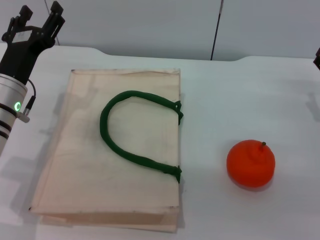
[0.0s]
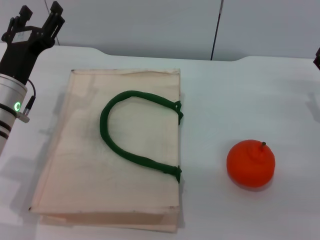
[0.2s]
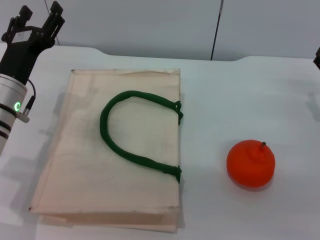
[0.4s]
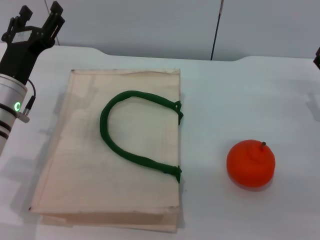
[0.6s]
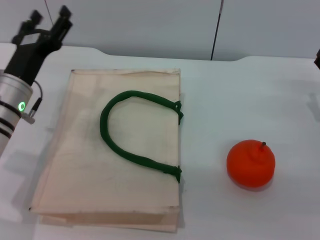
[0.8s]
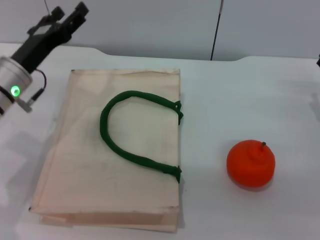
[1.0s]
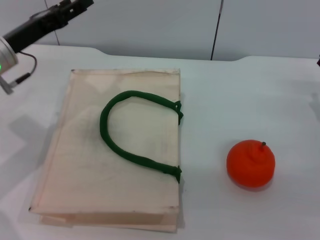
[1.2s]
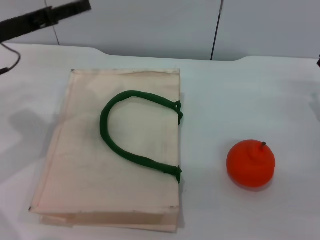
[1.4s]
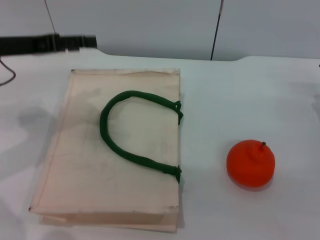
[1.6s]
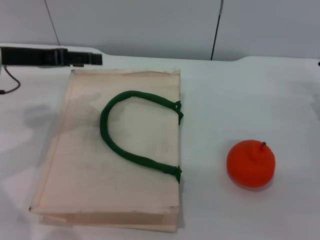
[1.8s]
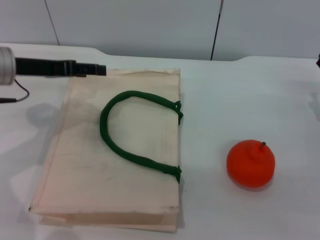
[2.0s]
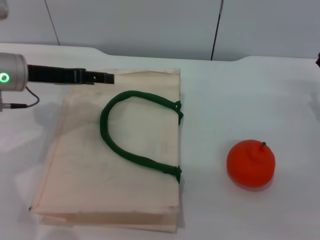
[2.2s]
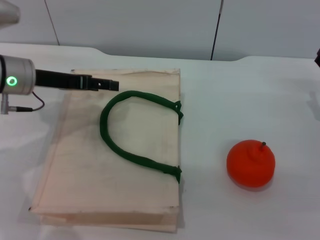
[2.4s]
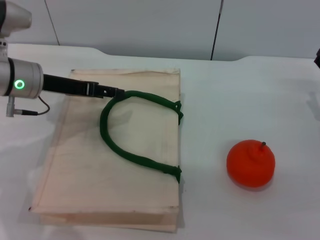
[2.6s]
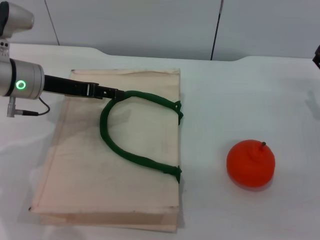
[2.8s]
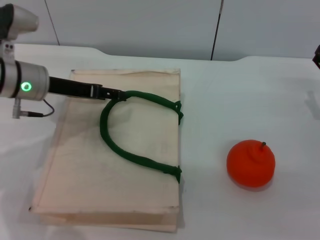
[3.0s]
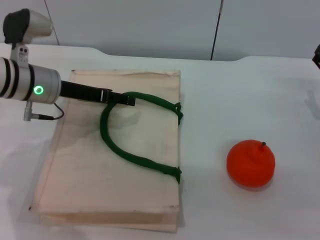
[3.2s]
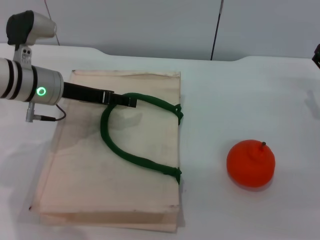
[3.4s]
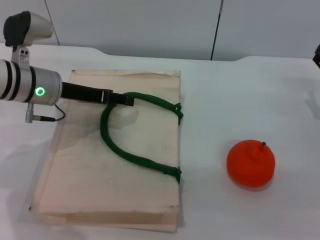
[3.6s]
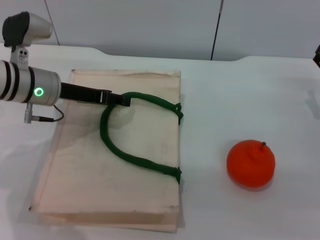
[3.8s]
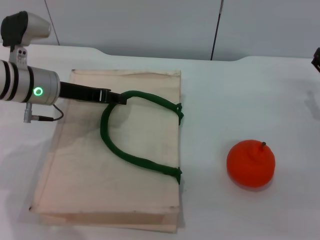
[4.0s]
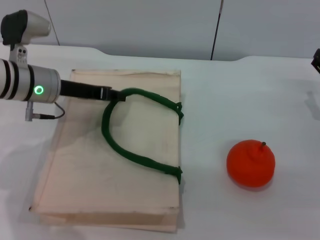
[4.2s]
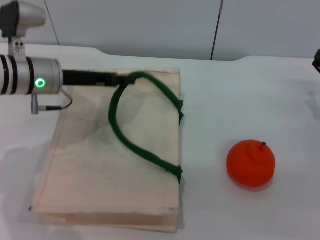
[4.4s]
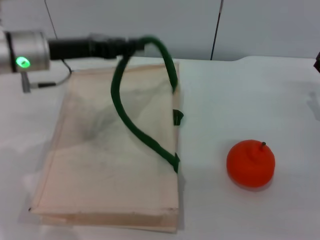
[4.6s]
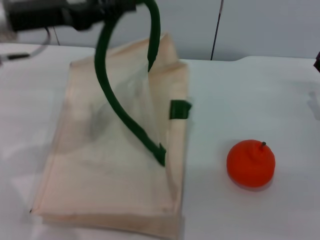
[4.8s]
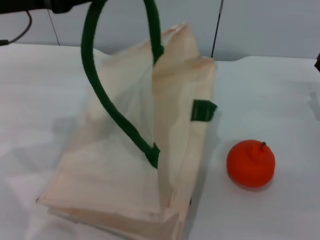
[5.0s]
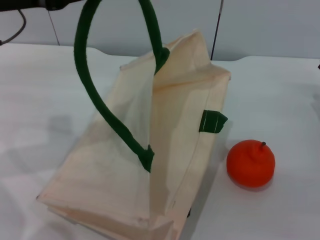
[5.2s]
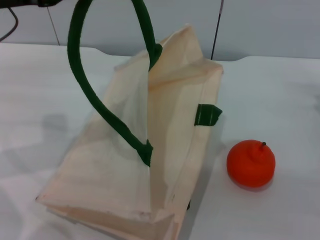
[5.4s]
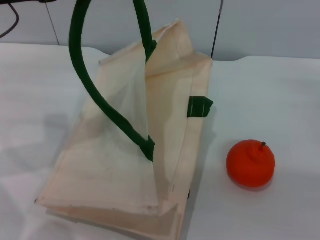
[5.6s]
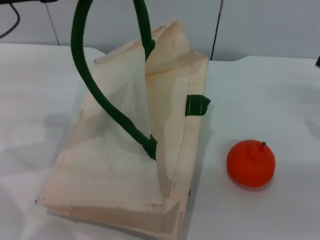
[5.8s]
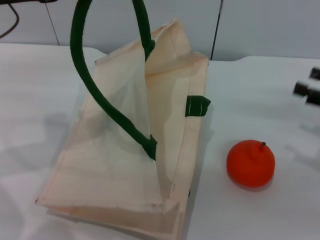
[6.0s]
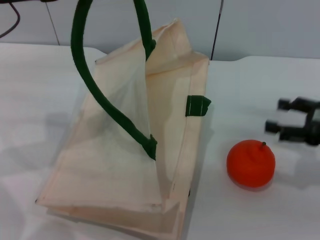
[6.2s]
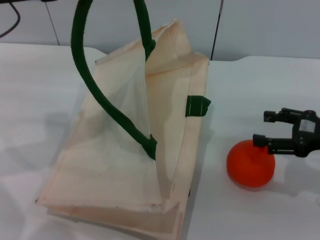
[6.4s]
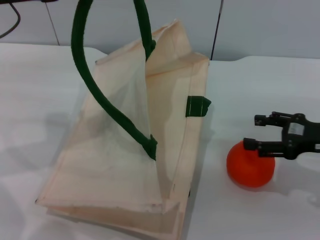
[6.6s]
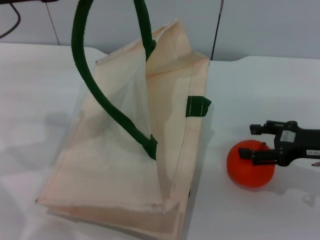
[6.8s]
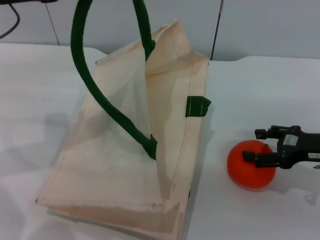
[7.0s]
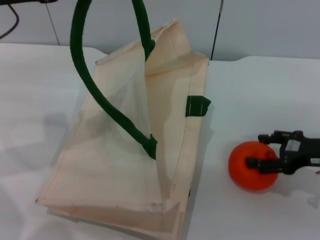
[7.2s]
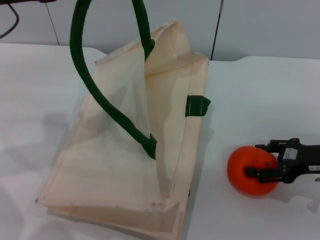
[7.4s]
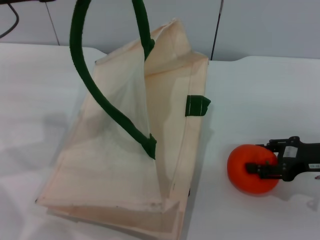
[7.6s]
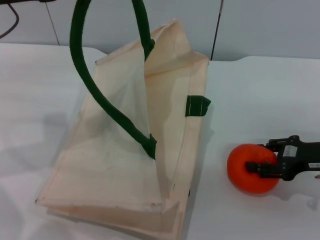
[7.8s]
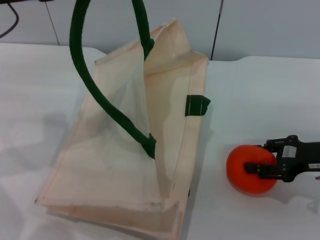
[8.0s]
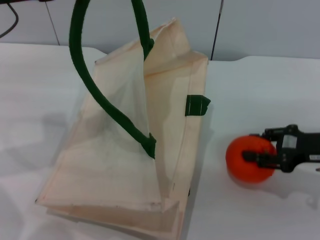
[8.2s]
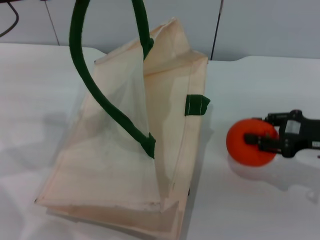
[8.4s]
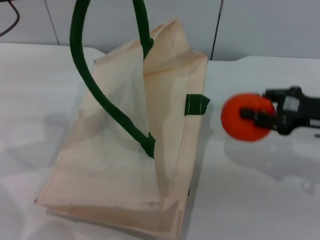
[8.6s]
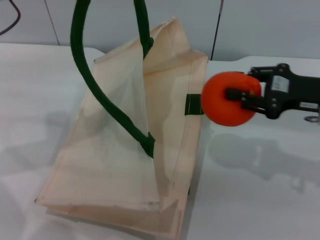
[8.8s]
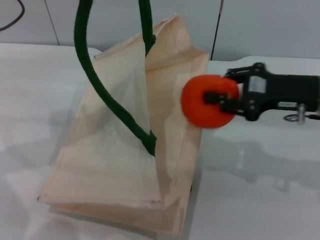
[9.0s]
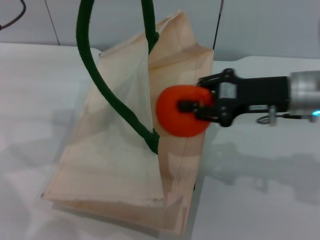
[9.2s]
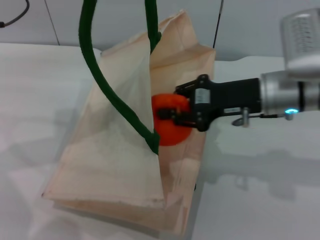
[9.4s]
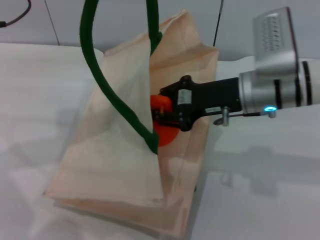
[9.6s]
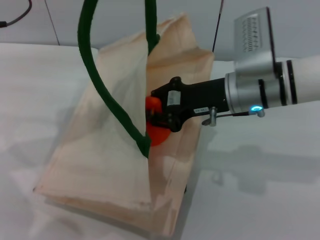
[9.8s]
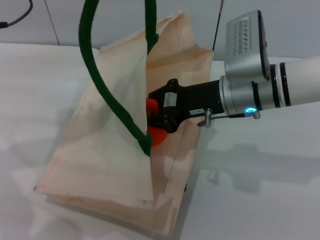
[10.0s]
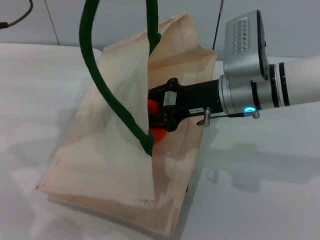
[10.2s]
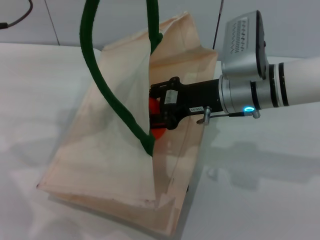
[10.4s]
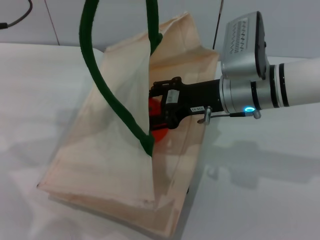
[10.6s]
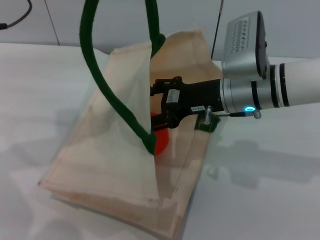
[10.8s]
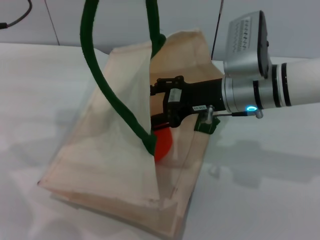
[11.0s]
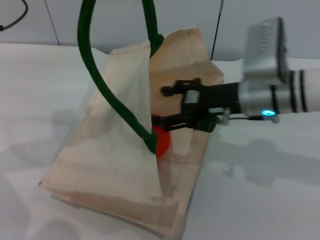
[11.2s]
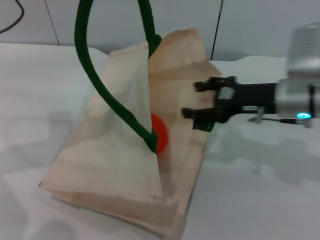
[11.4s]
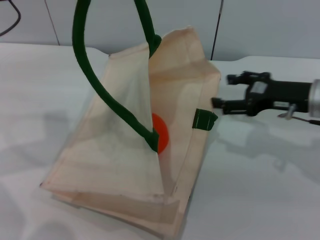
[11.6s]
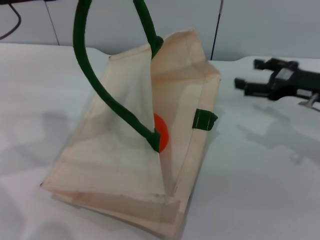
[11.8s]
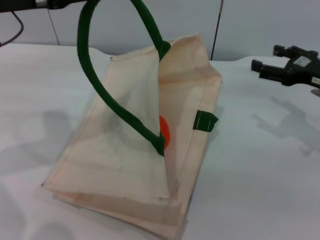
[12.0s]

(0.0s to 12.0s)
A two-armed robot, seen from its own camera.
Task of the whole recording: pick up the orange from the table and place it in the white handbag.
Step, 0.0s - 5.4s: Lift the woven bag with the left gripper to open it.
Step, 5.8s - 8.4s: Pick up the orange with the right gripper.
Step, 8.6s - 11.2s: Place the orange into the woven bag with the right gripper.
0.0s - 1.6s: The left gripper travels upward and to the left by approximately 10 cm.
1.6s - 3.0s: The left gripper goes roughly 10 cm downward and to the right.
3.0s - 4.4s: The left gripper closes up.
4.4s - 6.0s: The right gripper is displaced upward and to the right by roughly 10 cm; the left gripper moves upward and to the left, approximately 15 cm.
6.0s - 7.6s: The right gripper moves to the left, approximately 5 cm.
7.6s - 9.0s: The right gripper heads upward and to the left, covering approximately 10 cm, and closes up.
9.0s - 10.4s: The right gripper goes some 10 cm to the left.
10.4s - 12.0s: The right gripper shifts some 20 cm to the right, and opens.

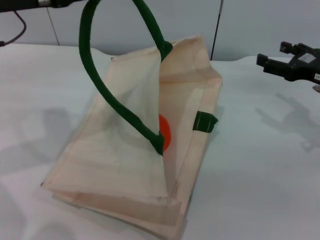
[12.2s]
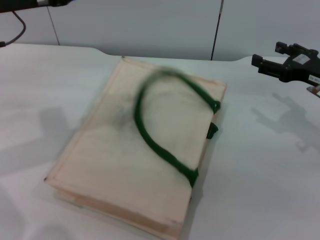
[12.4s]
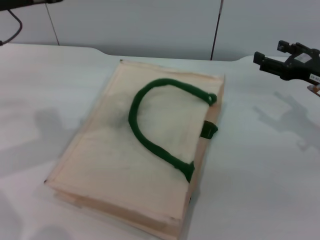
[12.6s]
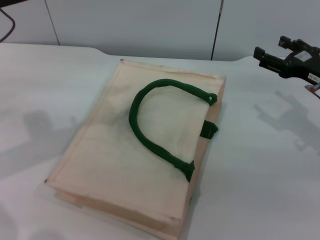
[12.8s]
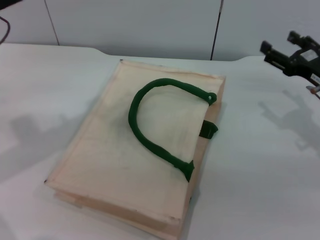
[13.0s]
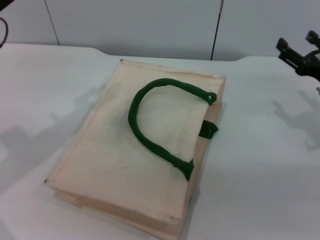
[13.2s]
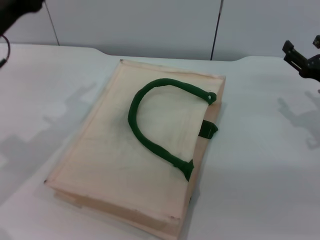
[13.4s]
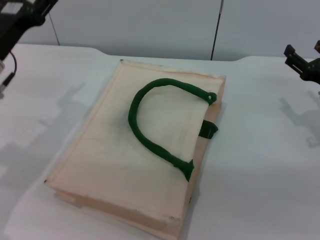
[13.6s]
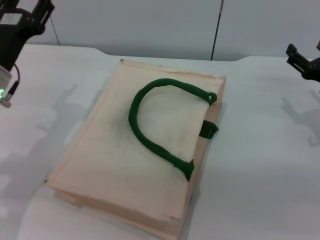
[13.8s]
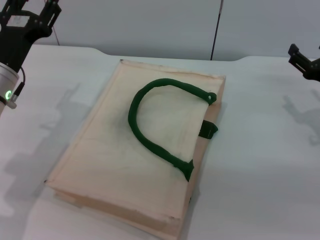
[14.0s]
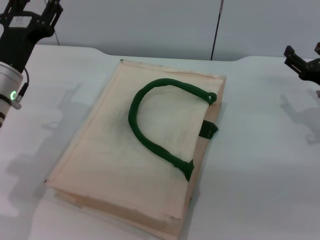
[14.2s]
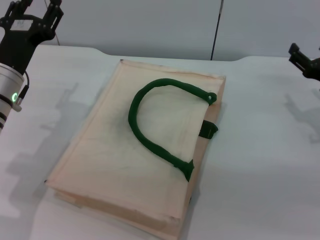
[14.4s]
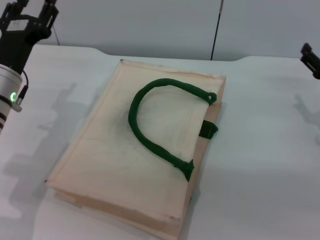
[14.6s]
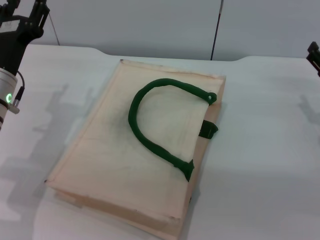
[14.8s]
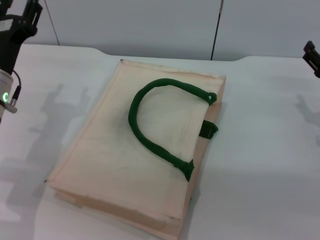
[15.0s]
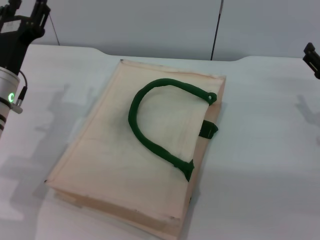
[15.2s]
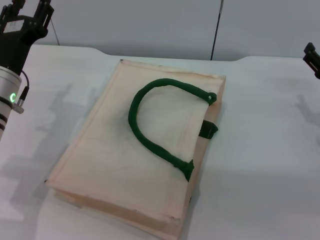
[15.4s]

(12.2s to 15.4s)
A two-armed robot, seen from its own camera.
Task of the whole recording: pick up the orange from the table and place it in the white handbag.
12.2s - 13.8s: The left gripper is displaced downward by approximately 15 cm, and opens.
13.8s - 15.4s: There are only small adjustments of the grippers.

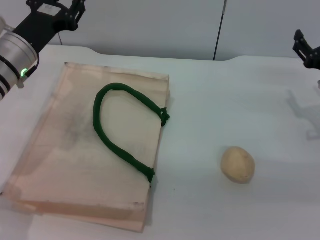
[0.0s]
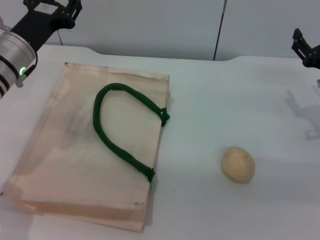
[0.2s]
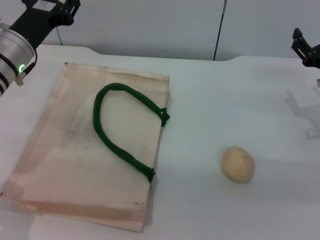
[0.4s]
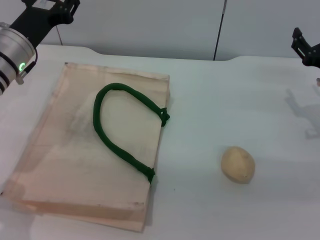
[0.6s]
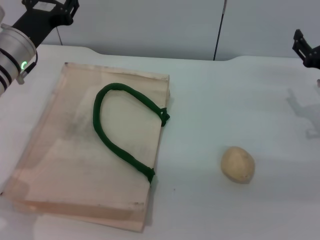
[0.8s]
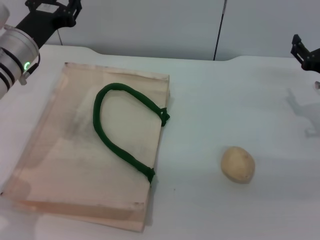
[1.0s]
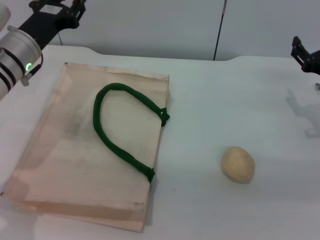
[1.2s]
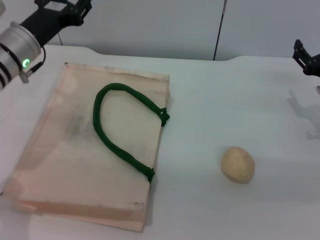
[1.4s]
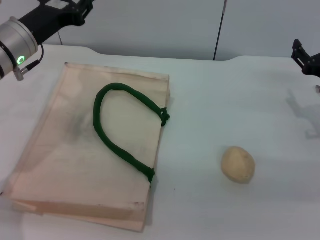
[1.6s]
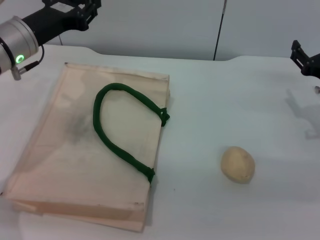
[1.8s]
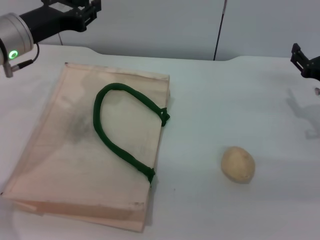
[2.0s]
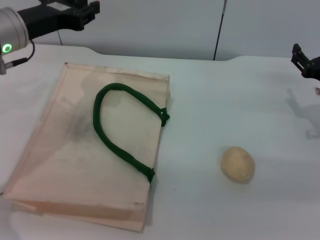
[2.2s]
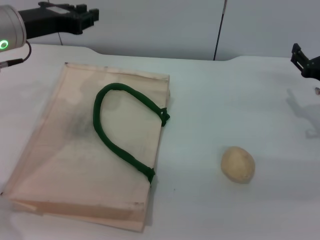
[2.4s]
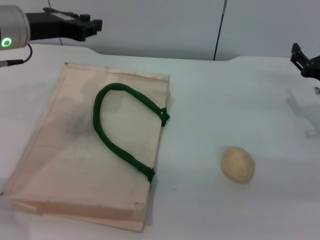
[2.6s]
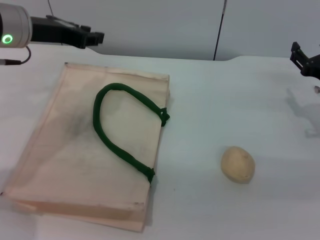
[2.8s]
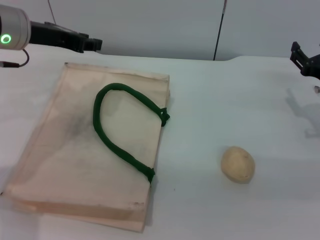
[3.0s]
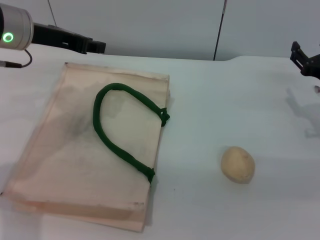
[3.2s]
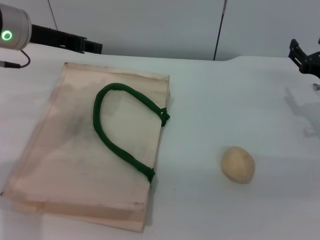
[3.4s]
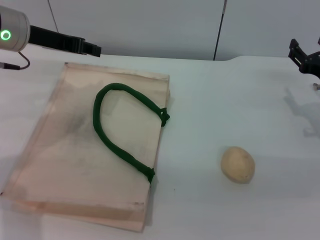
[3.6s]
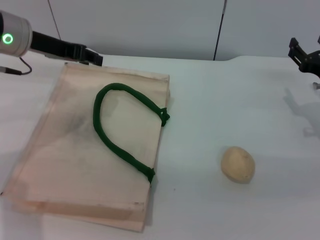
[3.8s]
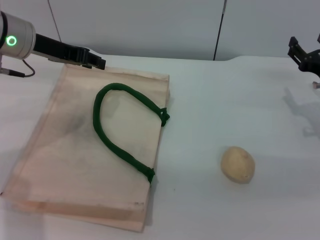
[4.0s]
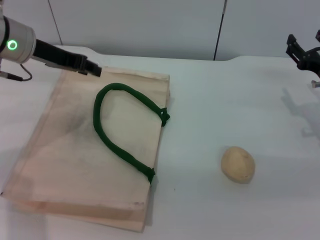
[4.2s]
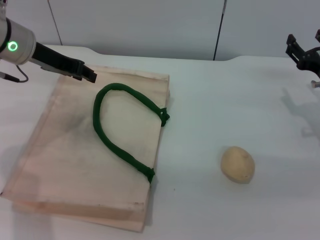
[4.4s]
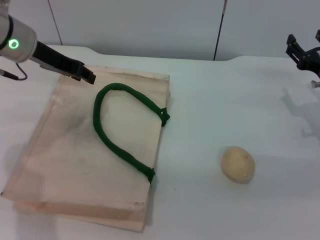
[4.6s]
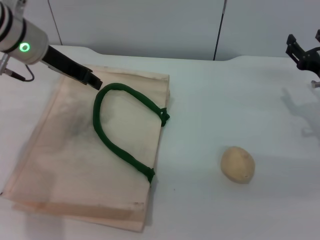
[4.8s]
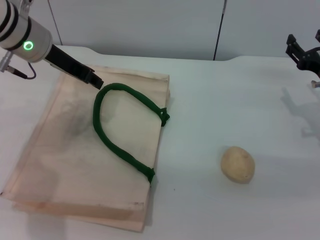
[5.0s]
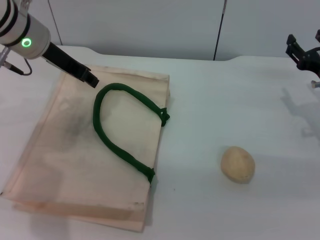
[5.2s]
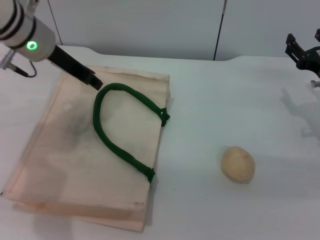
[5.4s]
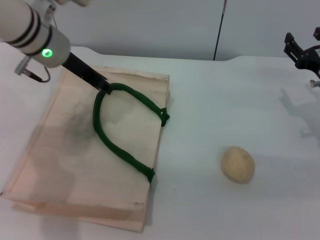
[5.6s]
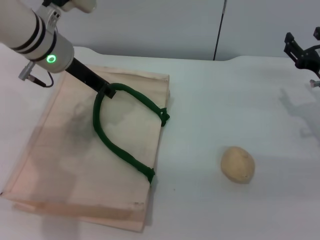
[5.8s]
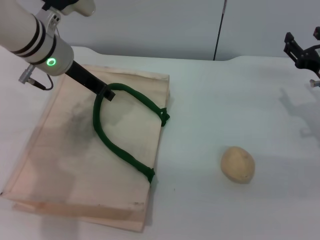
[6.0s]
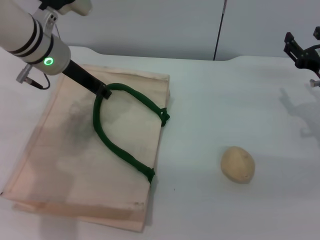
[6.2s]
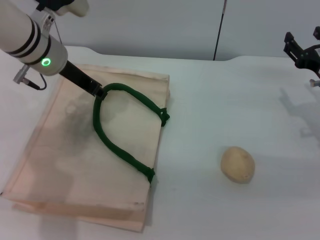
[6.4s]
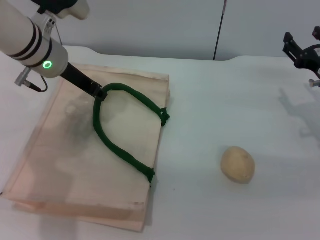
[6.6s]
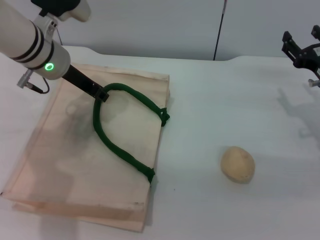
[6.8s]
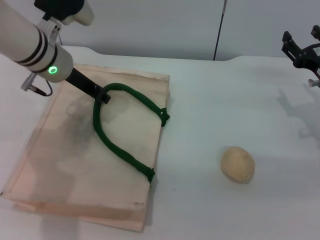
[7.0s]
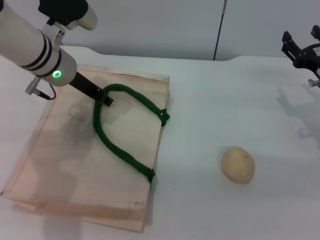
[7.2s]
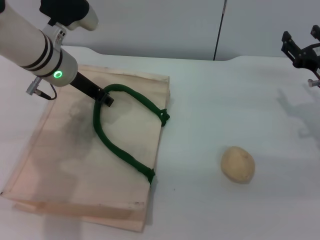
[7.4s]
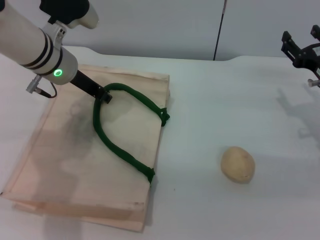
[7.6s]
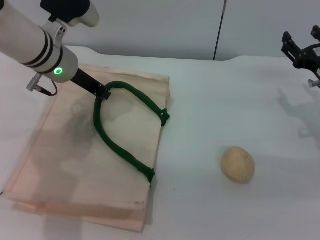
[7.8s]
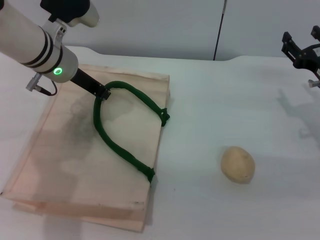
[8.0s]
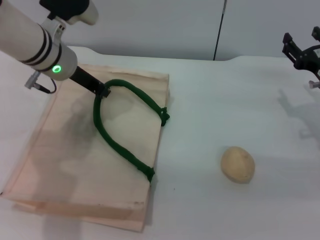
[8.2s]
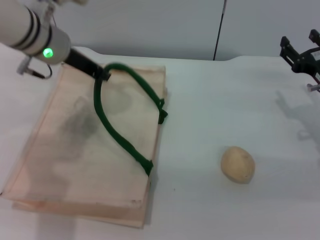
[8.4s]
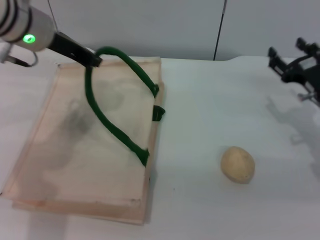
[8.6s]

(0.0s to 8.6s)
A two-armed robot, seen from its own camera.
Task of the whole recording: pick up the egg yolk pastry from the table and place it in the white handbag.
Step, 0.0s - 8.4s: Lift the woven bag with the left gripper to open it.
0.0s - 1.4s: The grippers make only small movements.
1.4s - 2.8s: The left gripper goes some 10 cm upward.
4.4s - 5.8s: The left gripper shifts some 5 cm to the right.
5.8s - 7.2s: There are only small adjustments of the grippers.
7.2s - 8.6s: The left gripper goes approximately 5 cm upward, and closes.
